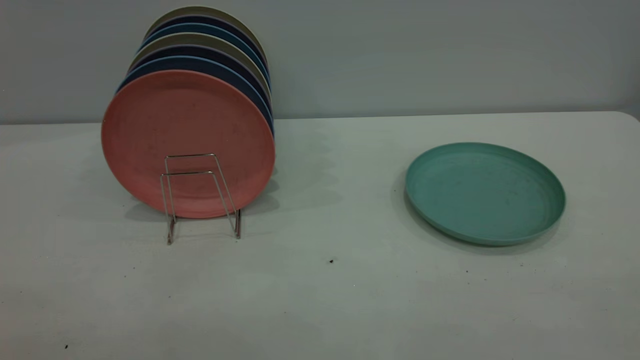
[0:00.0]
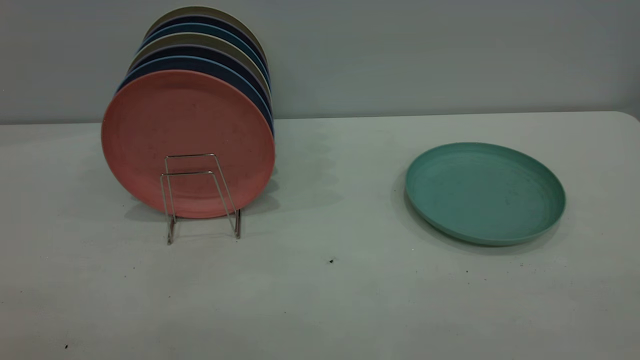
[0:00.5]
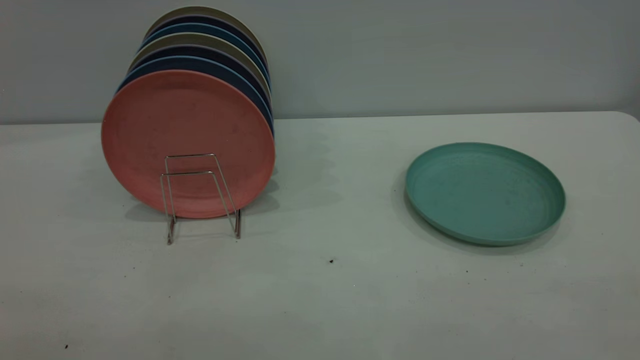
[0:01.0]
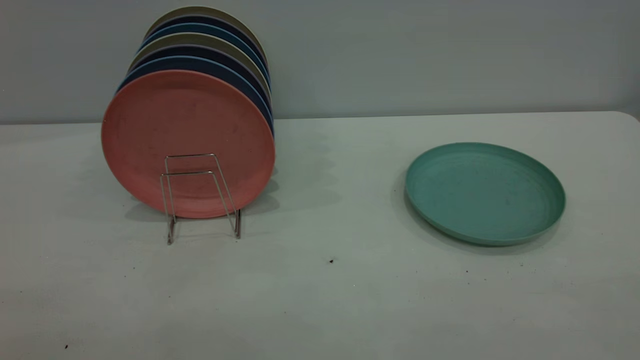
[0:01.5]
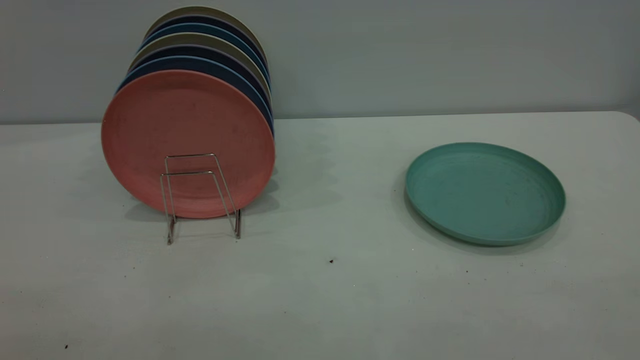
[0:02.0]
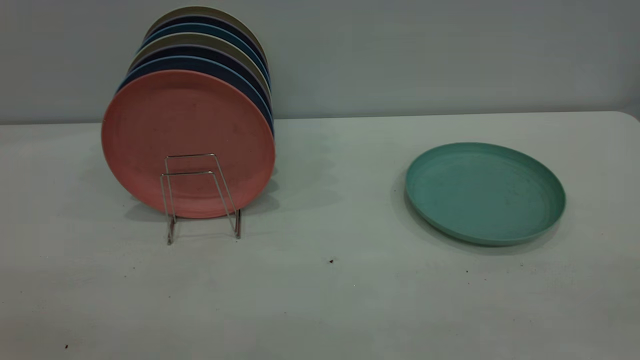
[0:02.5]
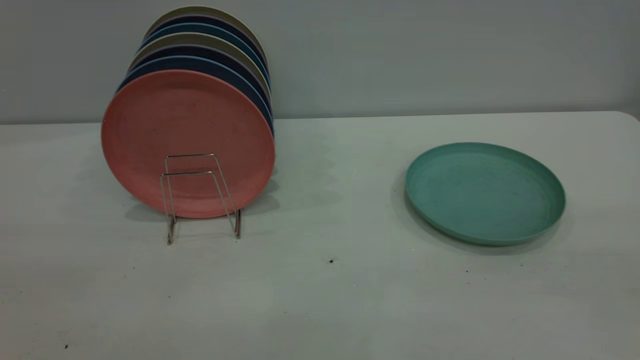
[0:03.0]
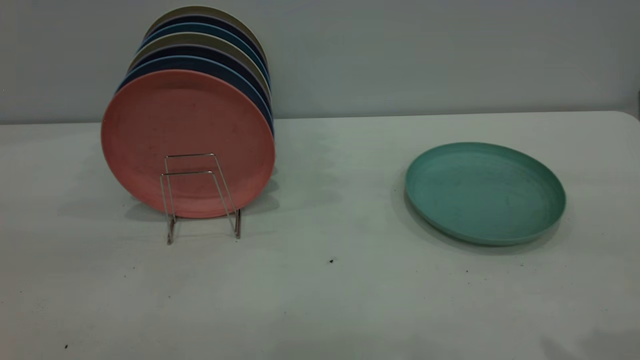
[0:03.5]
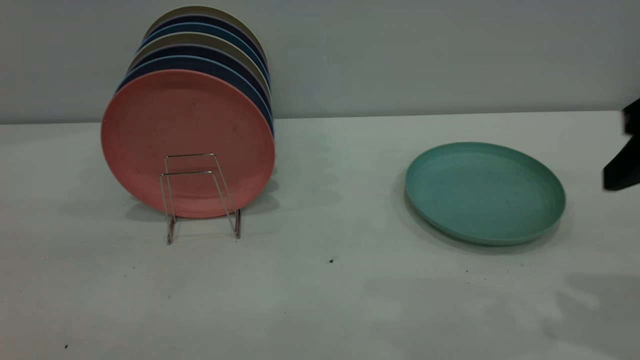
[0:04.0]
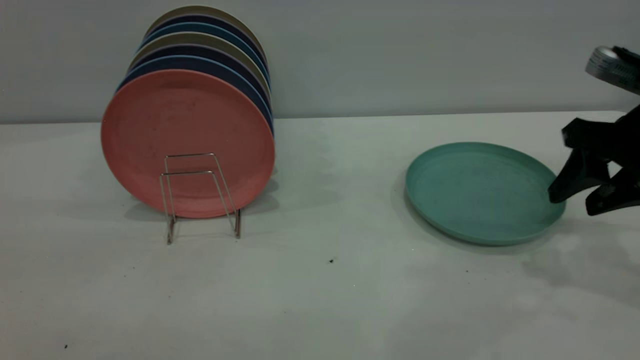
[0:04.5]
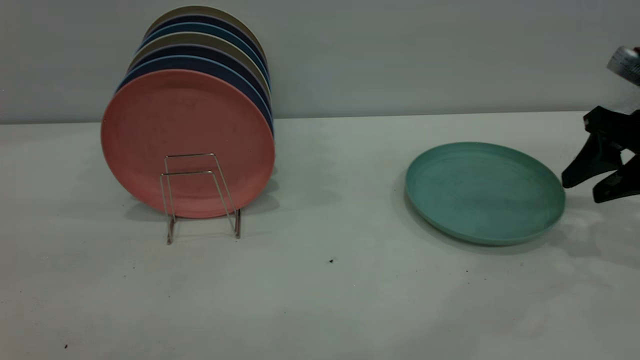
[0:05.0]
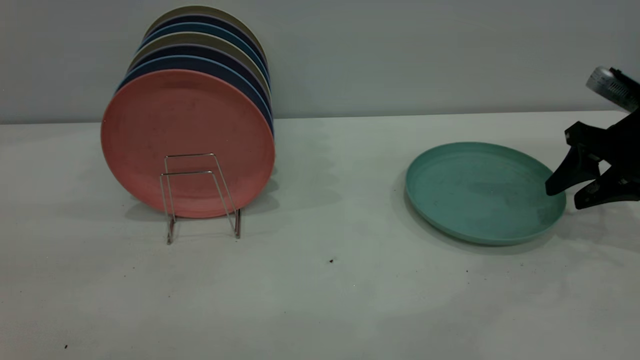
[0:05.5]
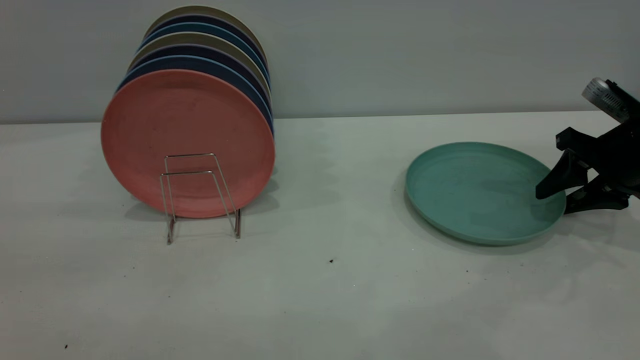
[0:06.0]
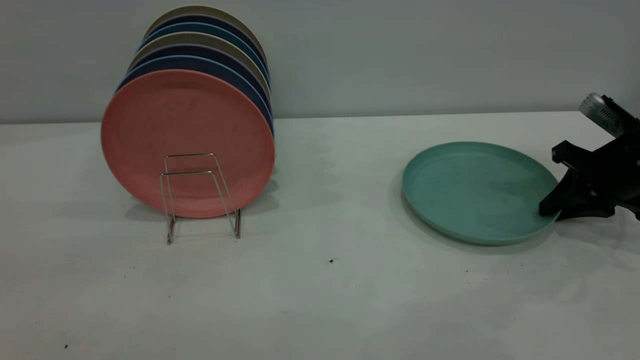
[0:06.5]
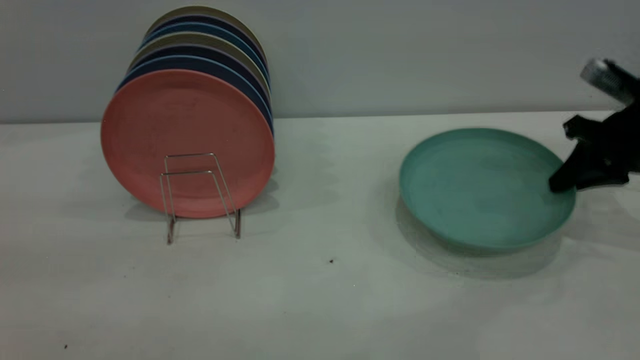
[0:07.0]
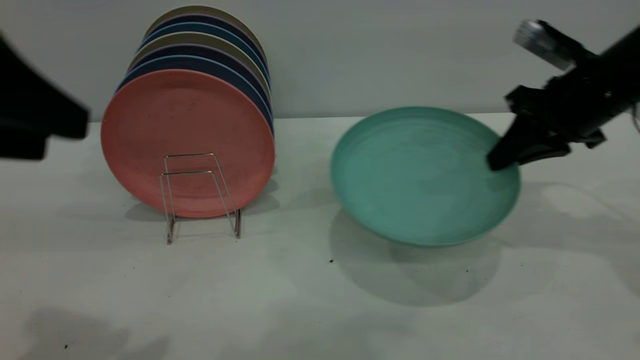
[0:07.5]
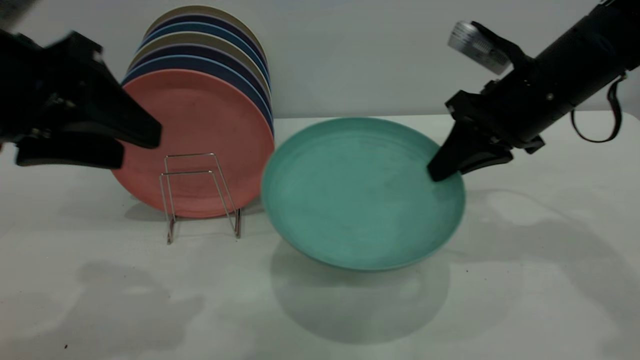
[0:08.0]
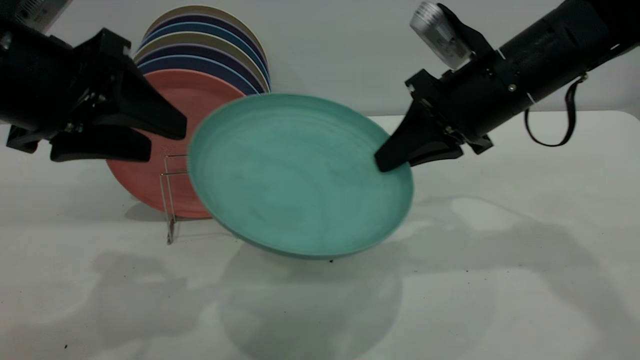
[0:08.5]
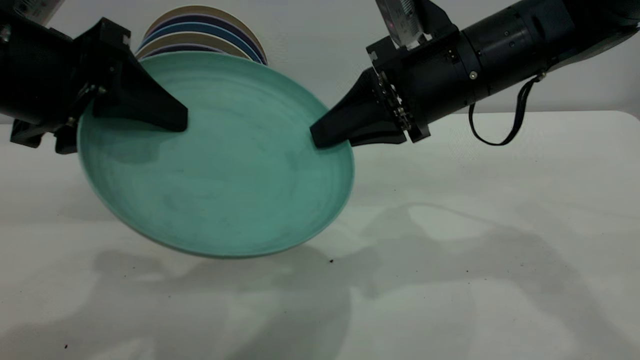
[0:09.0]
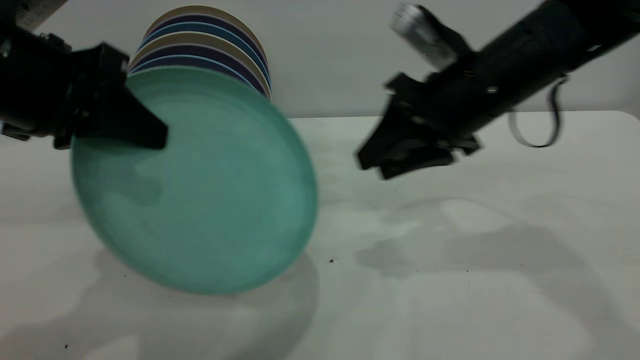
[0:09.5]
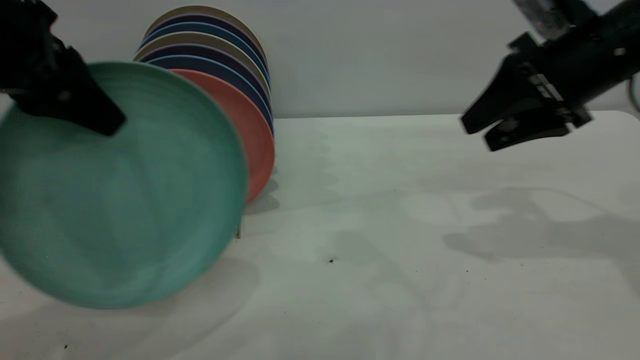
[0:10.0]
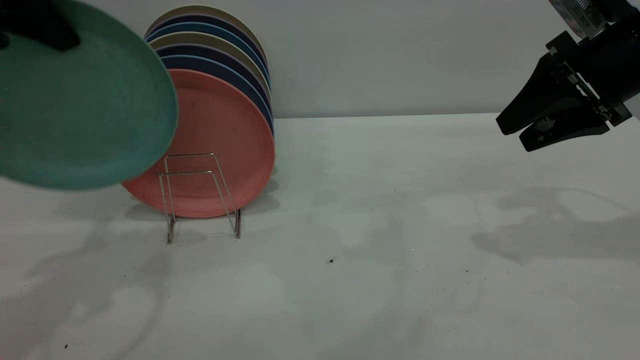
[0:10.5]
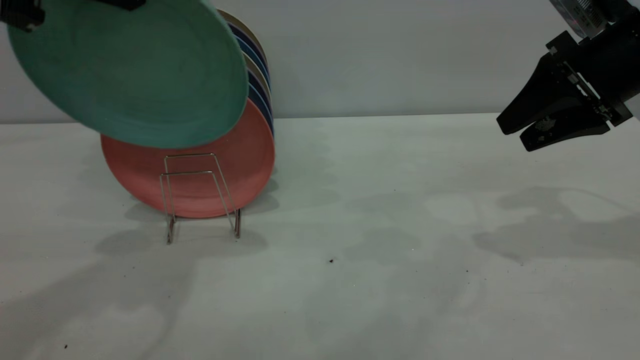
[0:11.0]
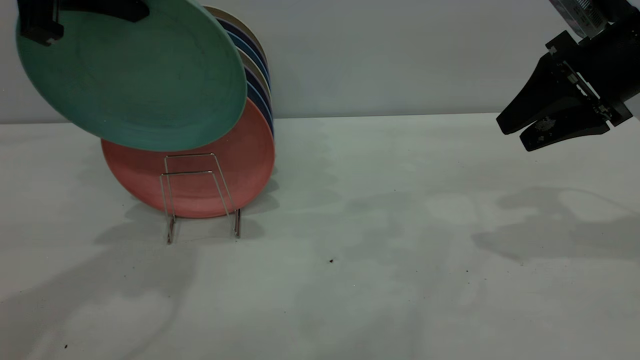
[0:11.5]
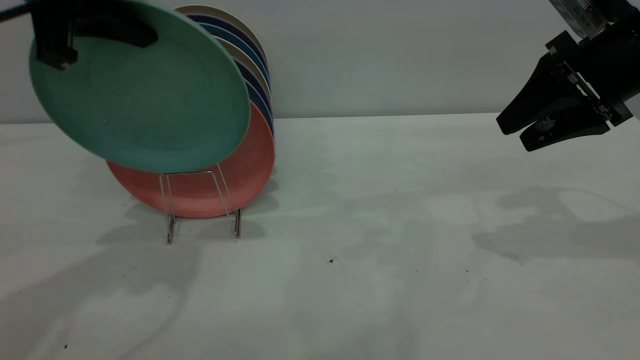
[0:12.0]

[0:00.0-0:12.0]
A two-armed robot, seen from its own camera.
Task of the whole recording: the right gripper grasp the green plate, the right gripper pass the green plate to the left gripper, and the left gripper place the green plate on the plate rack.
Step, 0:00.0 to 0:07.0: Pick up the plate with the right gripper.
Step, 0:07.5 to 0:09.0: Pass the plate from the right gripper to the left gripper.
0:00.0 to 0:02.0: Both grippers stay about where they are.
0:02.0 to 0:04.0: The right gripper goes approximately 30 cm forward and downward.
0:04.0 to 0:06.0: The right gripper is displaced forward and downward by approximately 20 cm.
0:06.0 to 0:08.0: The right gripper shifts roughly 15 cm to the left and upward, and closes its fingers. The left gripper is displaced forward and downward by some 20 cm.
0:08.0 to 0:10.0: The left gripper moves approximately 5 cm, and closes up; the right gripper travels to the right by roughly 5 cm, and opens.
0:10.0 to 0:12.0: The left gripper heads forward, covering approximately 5 cm.

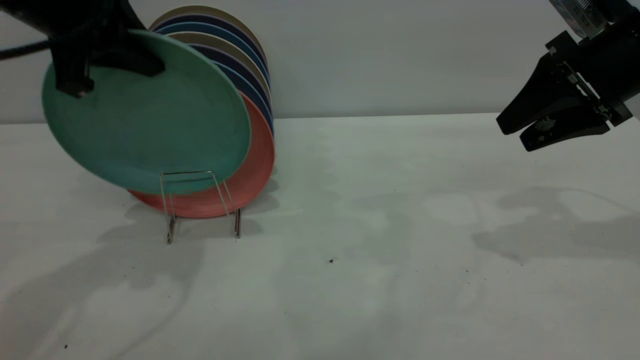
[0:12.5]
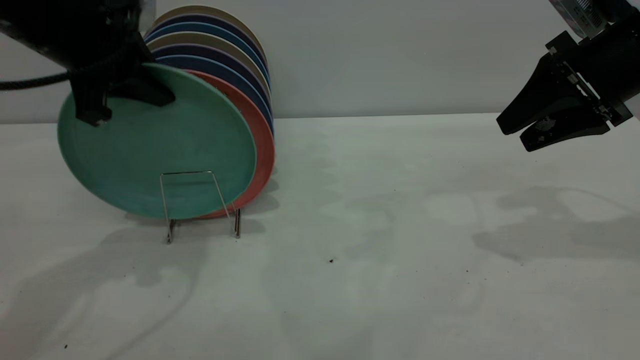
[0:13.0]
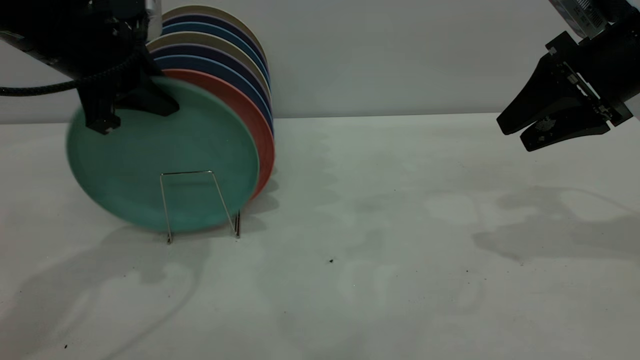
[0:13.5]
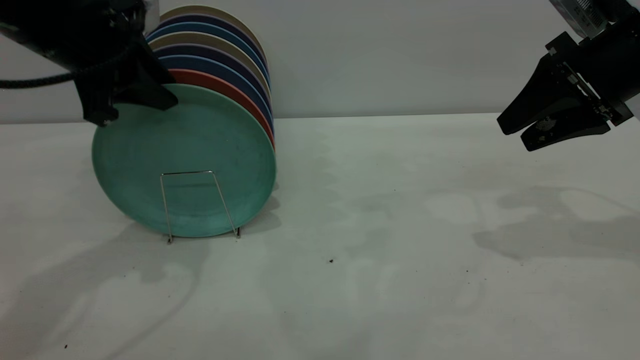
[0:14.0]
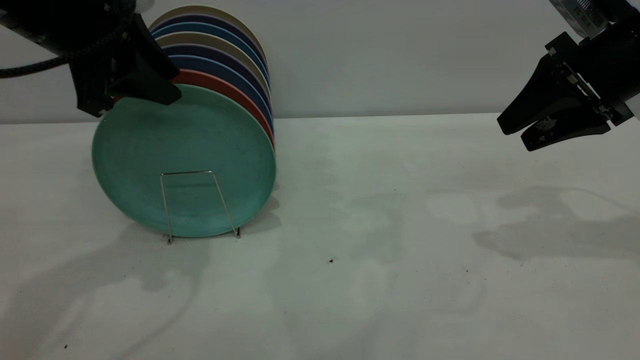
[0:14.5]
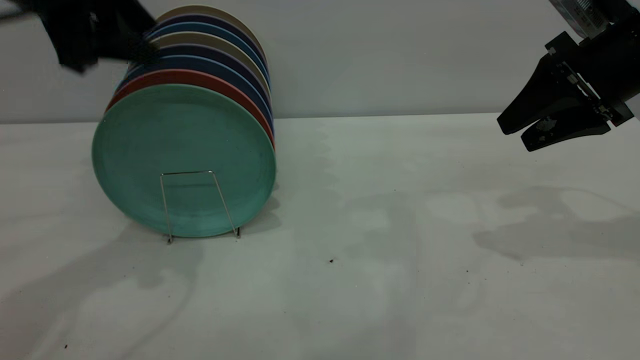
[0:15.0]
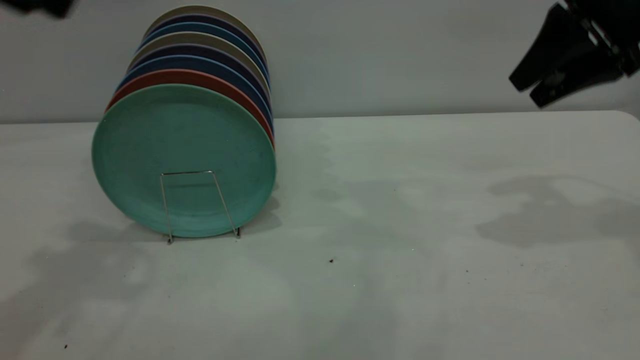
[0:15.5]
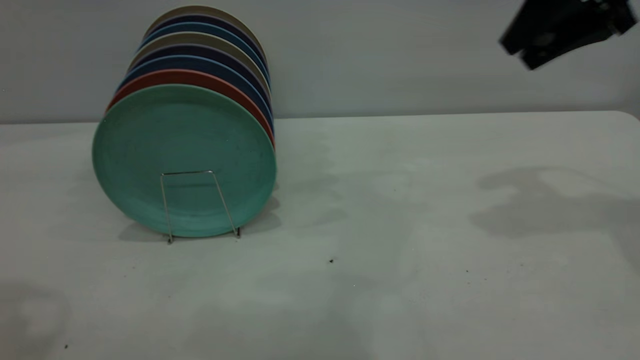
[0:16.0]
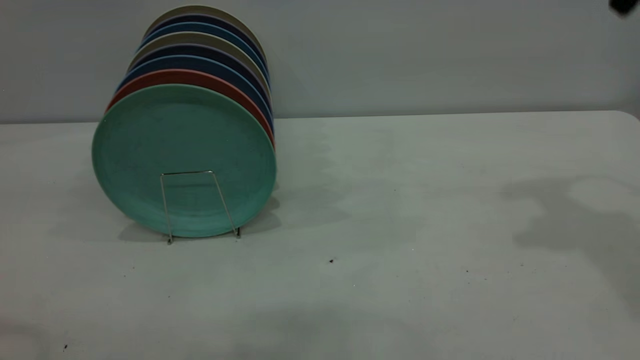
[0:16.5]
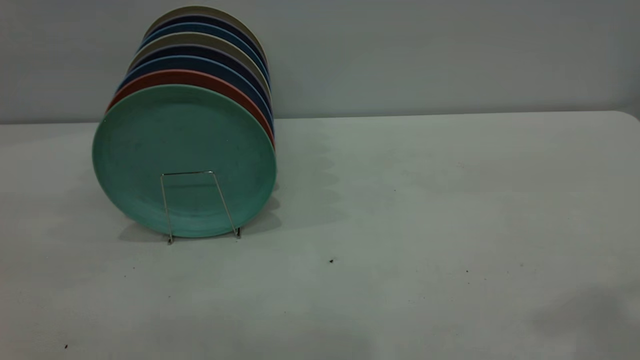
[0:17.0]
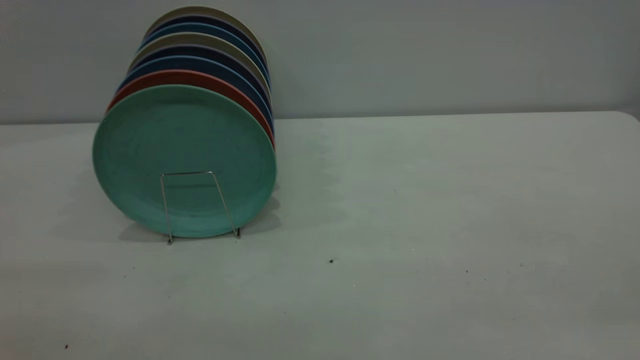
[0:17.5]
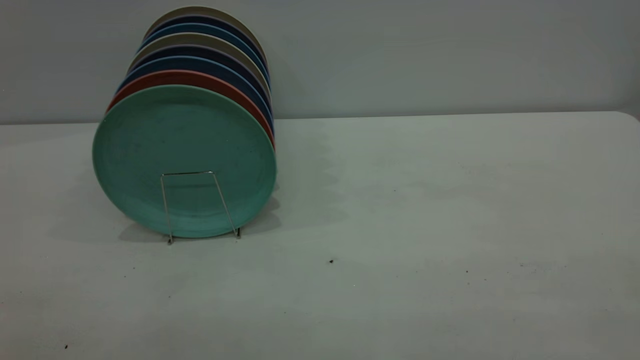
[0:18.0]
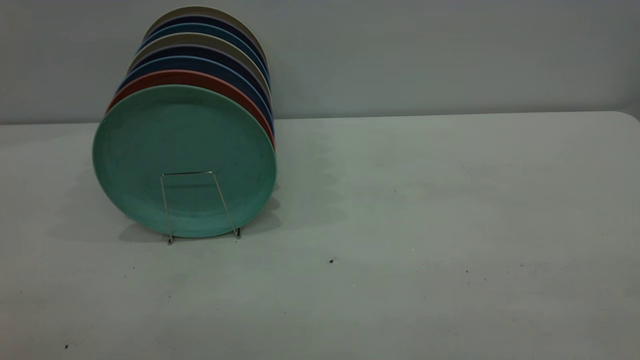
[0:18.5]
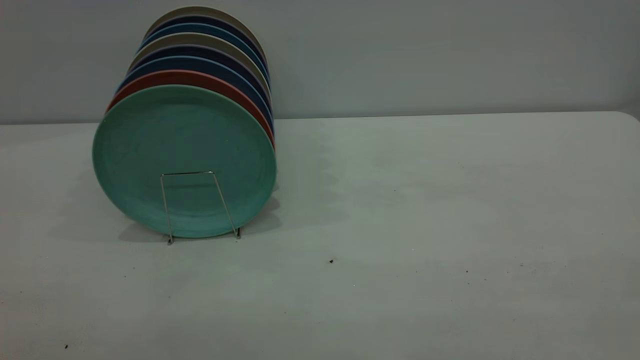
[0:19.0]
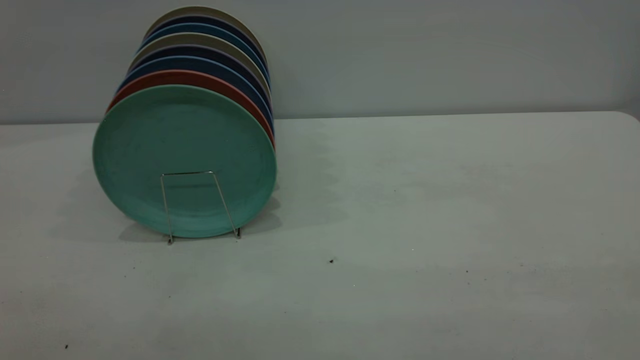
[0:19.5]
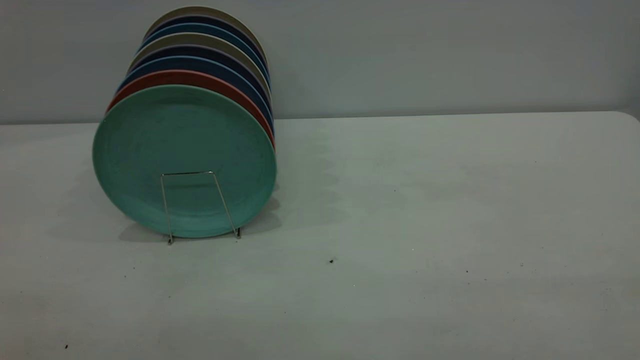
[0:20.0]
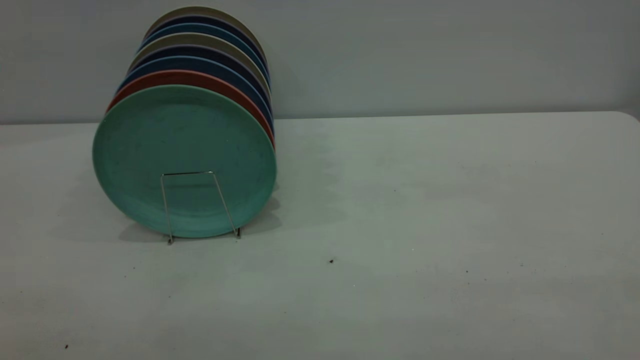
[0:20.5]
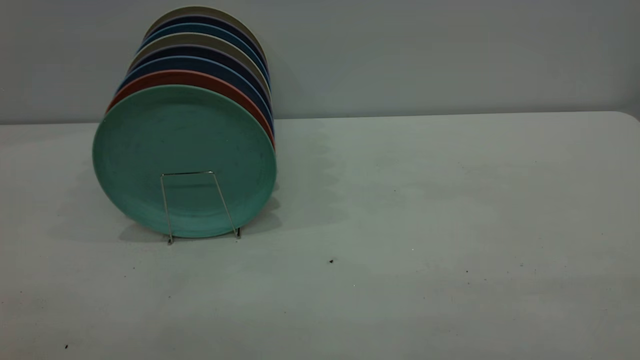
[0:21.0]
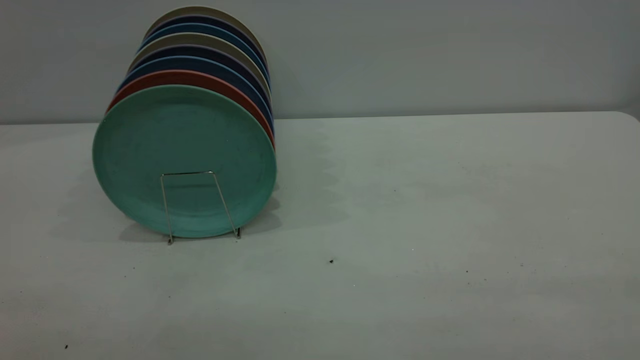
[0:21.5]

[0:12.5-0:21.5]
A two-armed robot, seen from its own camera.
Task of the whole recording: the right gripper grasp the green plate, the right gripper pass the green plate to the left gripper, and the left gripper place the green plate on the plate rack.
Step, 0:12.5 to 0:14.5: Place the plate on the shelf.
0:12.5 to 0:14.5: The left gripper opens up.
0:14.5 to 0:17.0: The right gripper is displaced upward and backward by roughly 30 cm. The left gripper is displaced backward and upward by roughly 30 cm.
